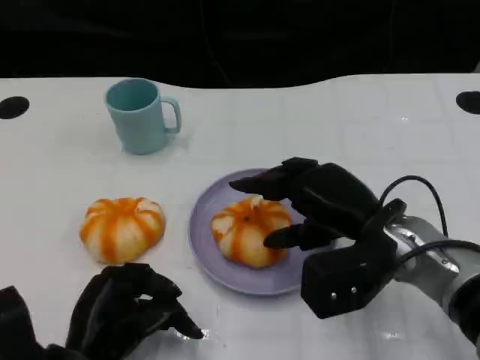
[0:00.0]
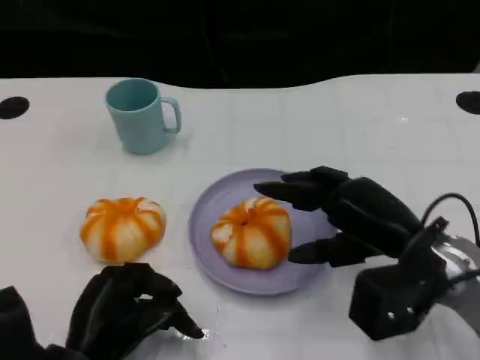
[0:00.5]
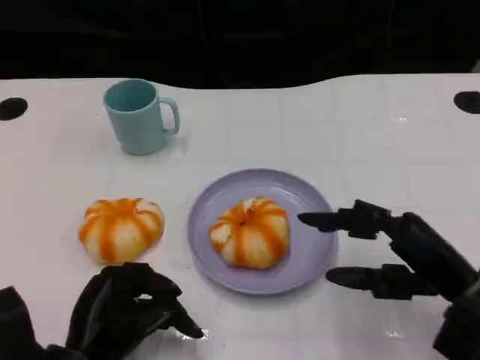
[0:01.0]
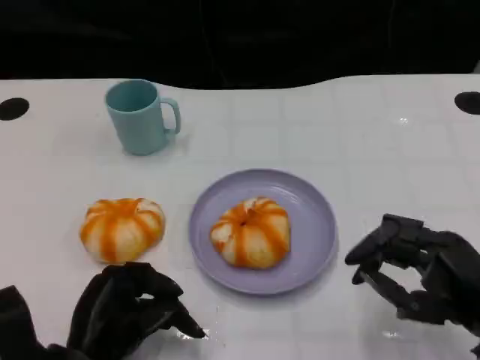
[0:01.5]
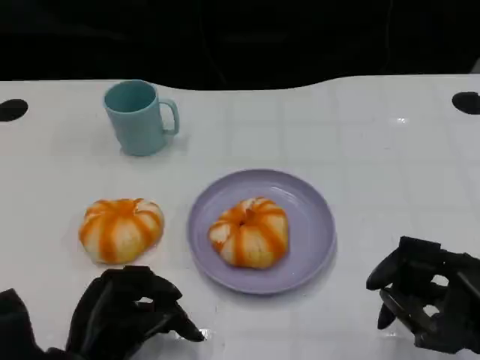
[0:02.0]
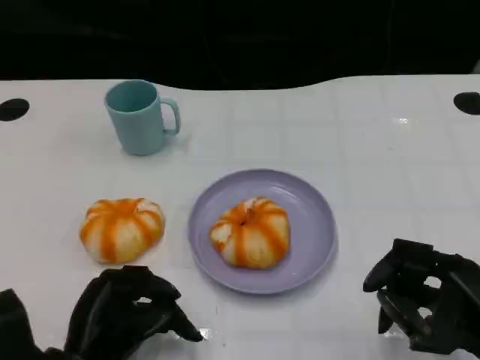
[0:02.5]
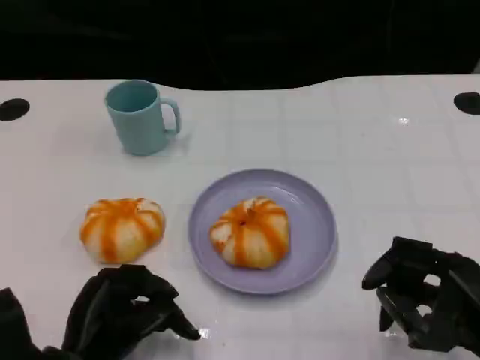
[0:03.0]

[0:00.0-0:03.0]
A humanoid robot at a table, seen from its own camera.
Task of the whole recording: Grasp the bread from the table and place it into the plate.
0:00.0 to 0:01.5: The right hand heads to the right and backward, covering about 15 cm.
0:01.5 to 0:03.0: The hands move only a little.

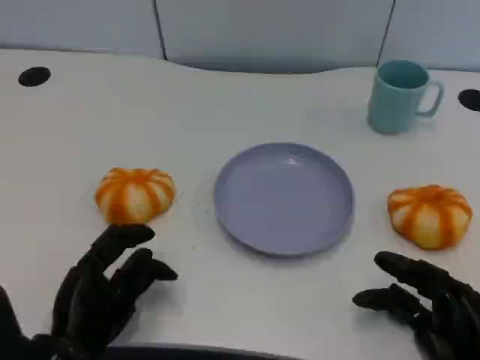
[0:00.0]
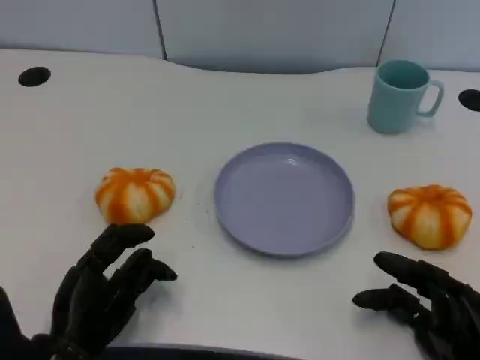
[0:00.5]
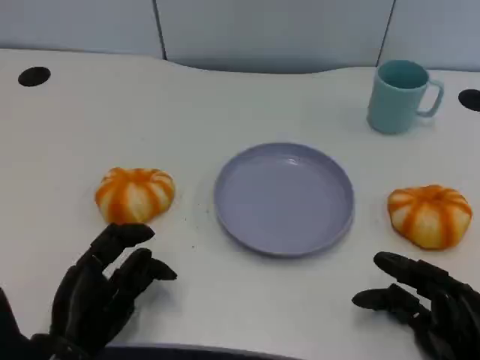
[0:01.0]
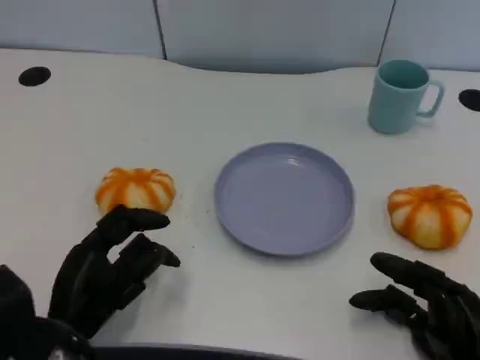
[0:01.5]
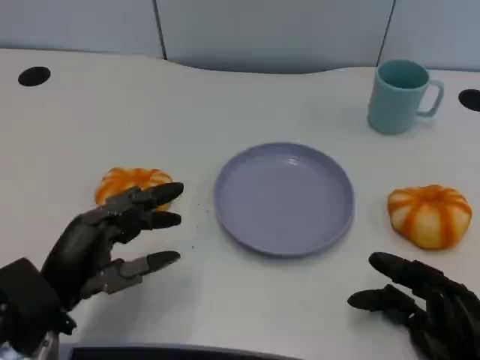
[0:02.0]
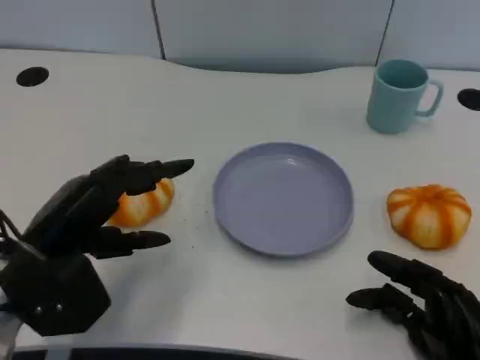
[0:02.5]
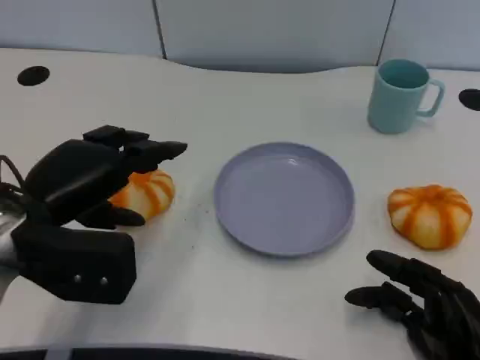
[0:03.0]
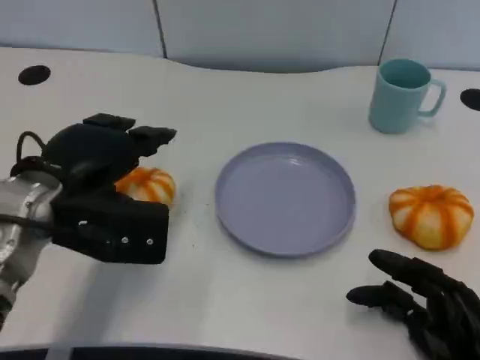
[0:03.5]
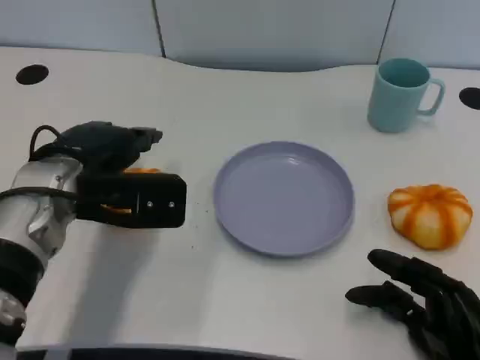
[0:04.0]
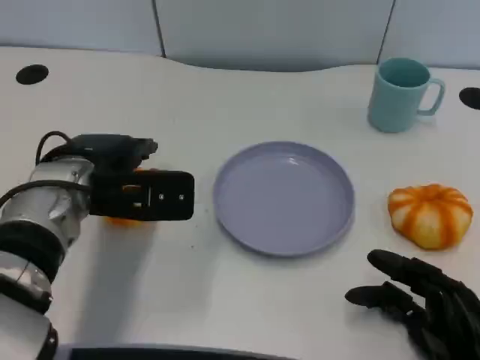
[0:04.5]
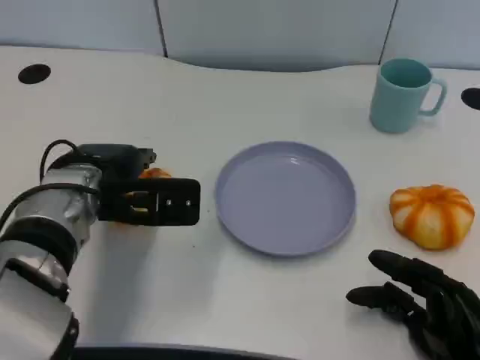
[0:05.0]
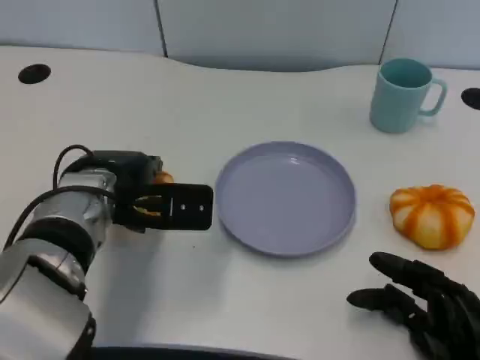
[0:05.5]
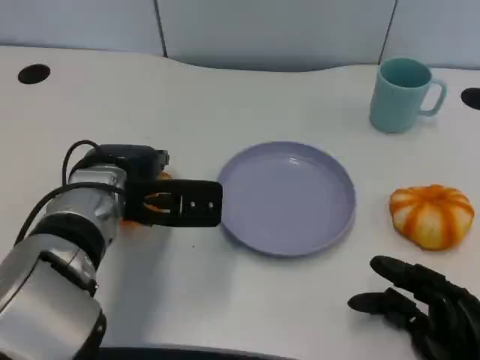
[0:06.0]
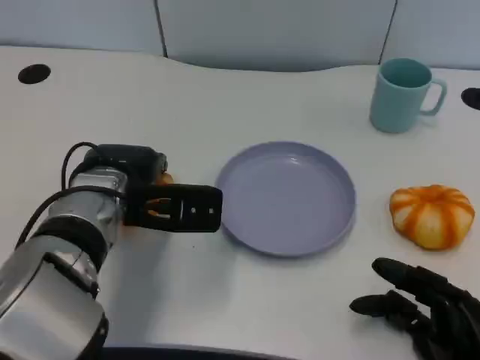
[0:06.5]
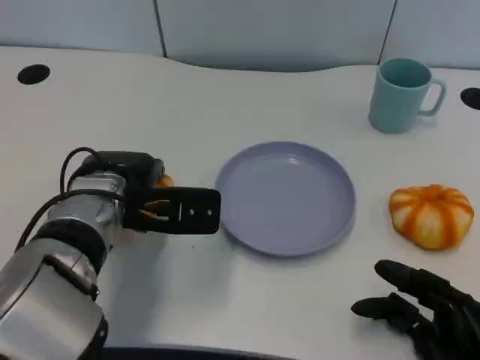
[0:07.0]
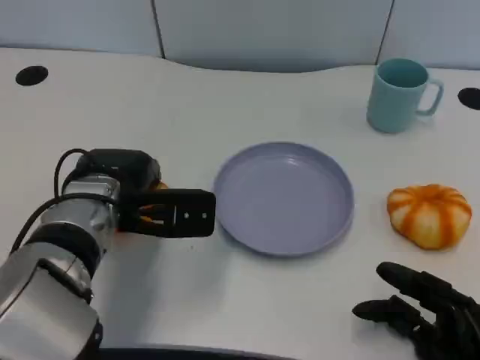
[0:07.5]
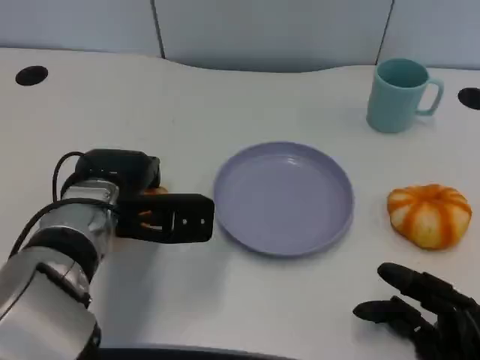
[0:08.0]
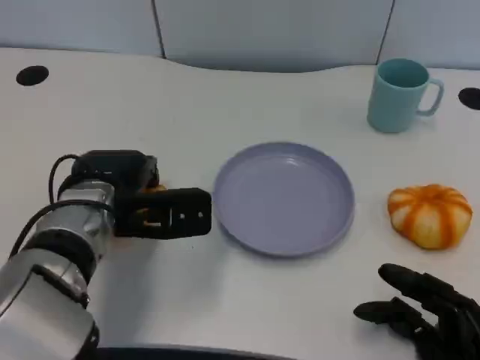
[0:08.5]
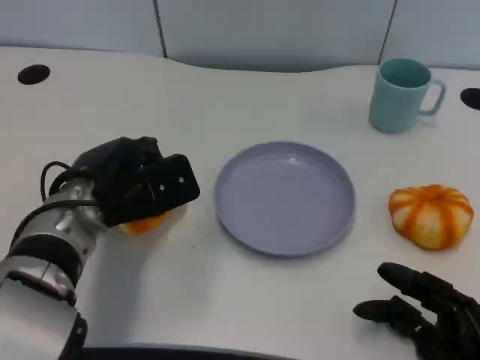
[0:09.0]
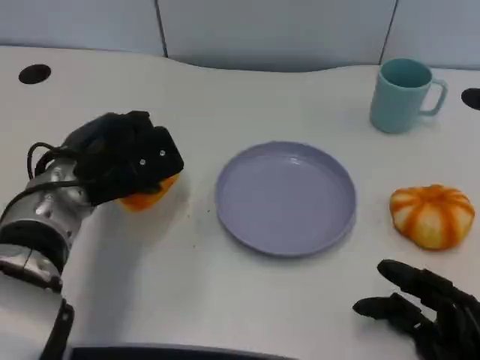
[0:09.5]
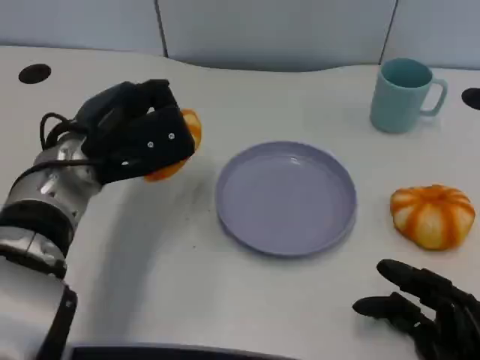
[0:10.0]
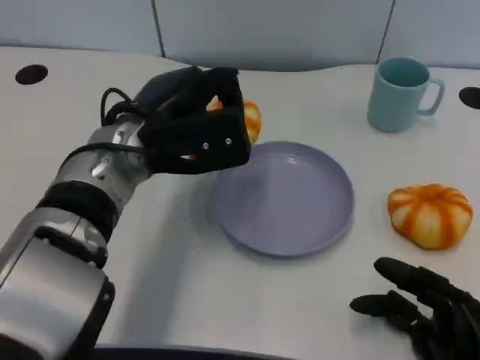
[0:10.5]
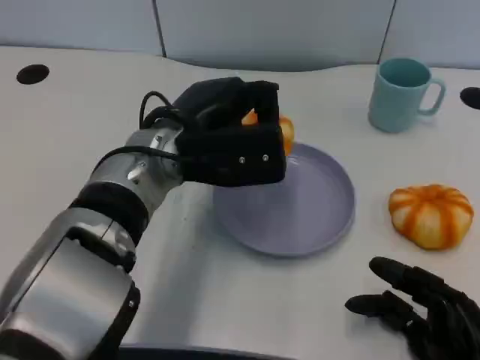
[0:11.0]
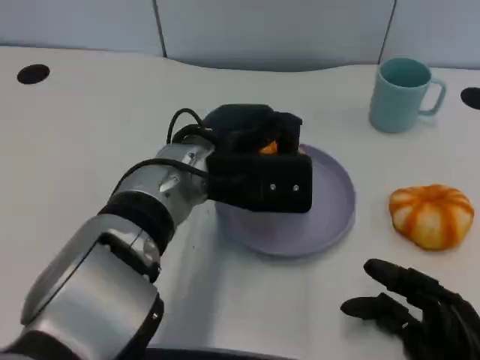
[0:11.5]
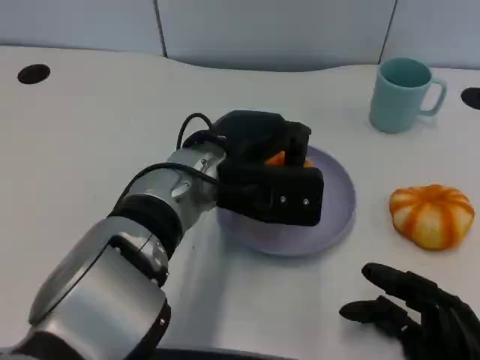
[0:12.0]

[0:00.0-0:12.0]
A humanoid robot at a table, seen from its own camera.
Task of the whole recording: Grasp the bread from the table and place it into the plate.
0:00.0 to 0:02.0: The left hand shifts about 5 cm upward.
0:02.0 to 0:04.0: The left hand shifts some 15 cm forward and upward.
0:04.0 to 0:08.0: The hands make only small movements.
0:08.0 to 0:10.0: The left hand shifts about 5 cm upward.
0:10.0 to 0:12.0: The left hand heads to the right, covering roughly 10 cm.

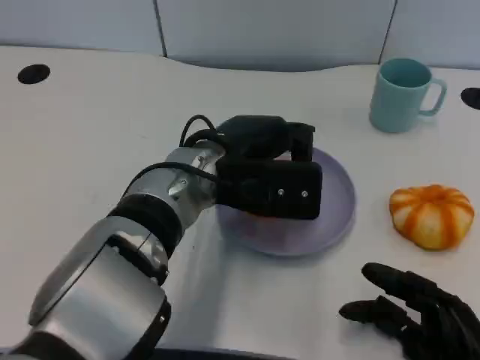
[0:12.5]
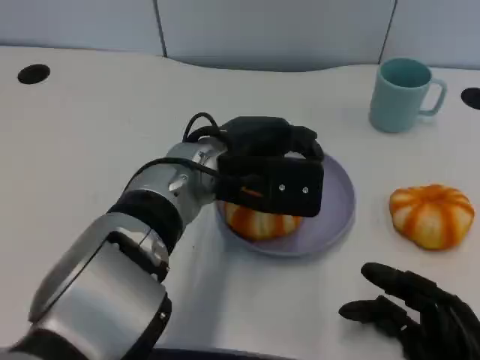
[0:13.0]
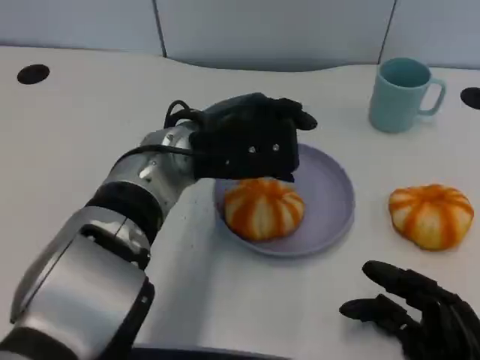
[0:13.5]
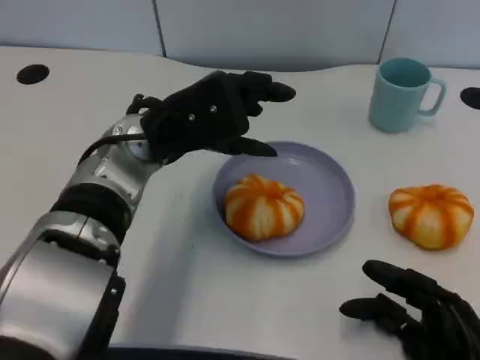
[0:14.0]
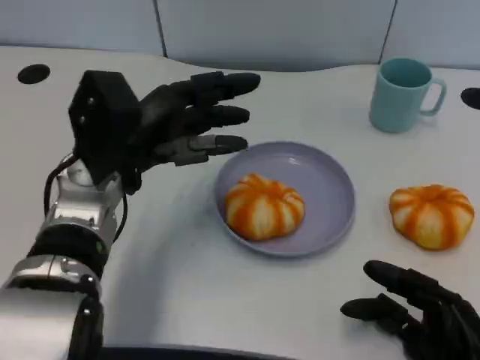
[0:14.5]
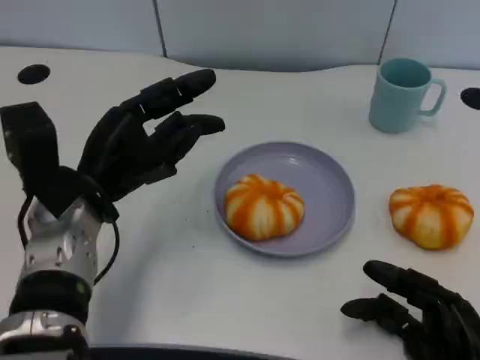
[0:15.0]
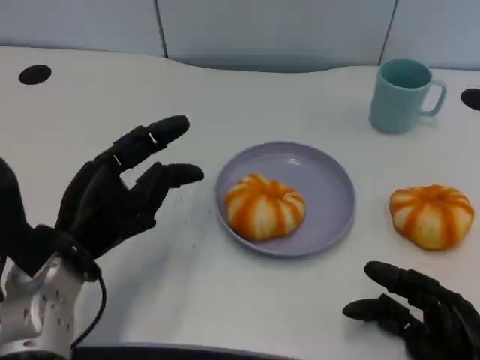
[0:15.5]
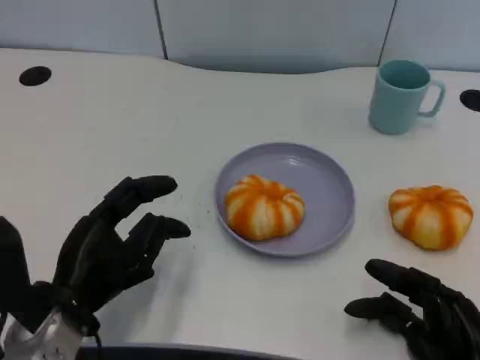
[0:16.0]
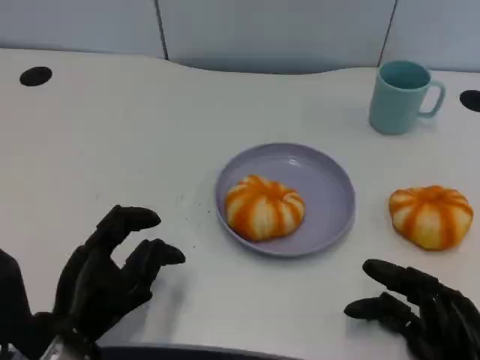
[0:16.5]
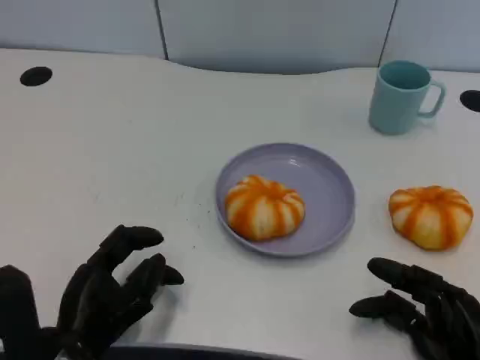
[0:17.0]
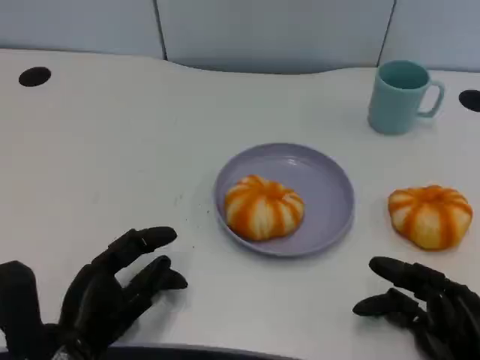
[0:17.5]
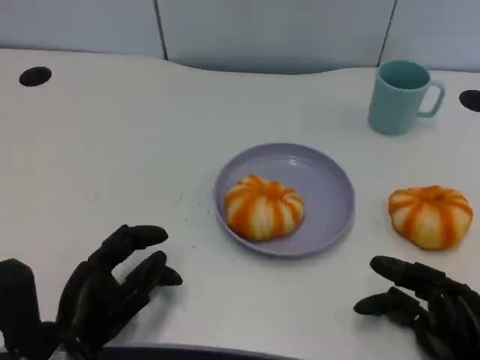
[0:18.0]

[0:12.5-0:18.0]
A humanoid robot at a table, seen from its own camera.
Task of the whole recording: Grasp the bread from the table and place it into the plate.
0:12.5 to 0:14.5: The left hand heads to the left, covering some 10 cm.
0:14.5 to 0:16.0: The left hand is displaced backward, downward and to the left by about 15 cm.
0:16.0 to 0:18.0: The hands move only a little.
